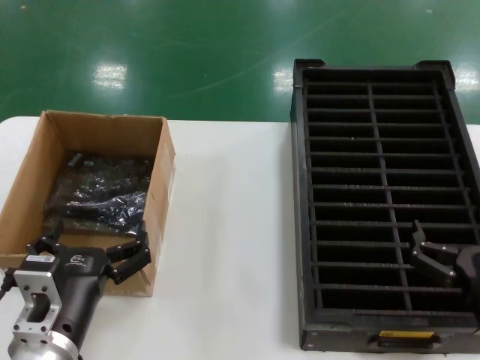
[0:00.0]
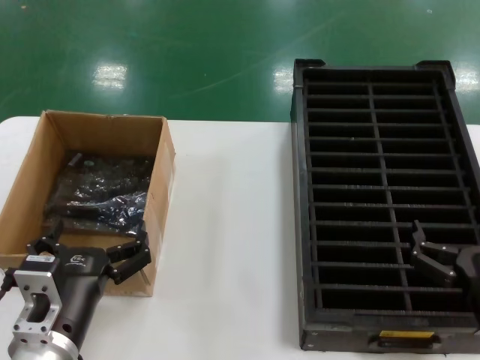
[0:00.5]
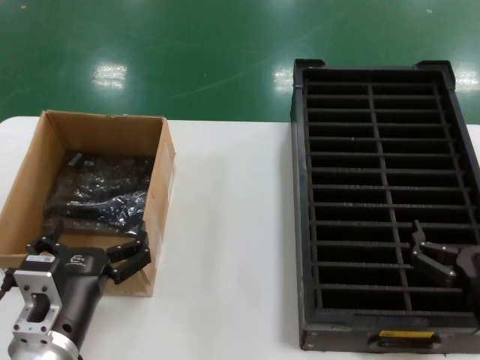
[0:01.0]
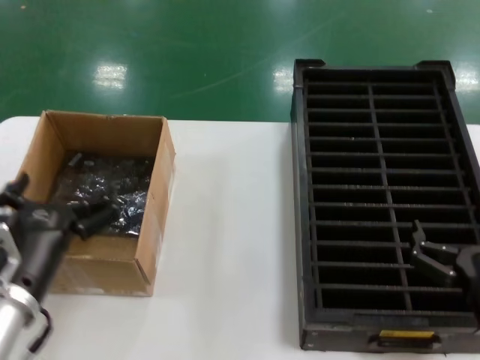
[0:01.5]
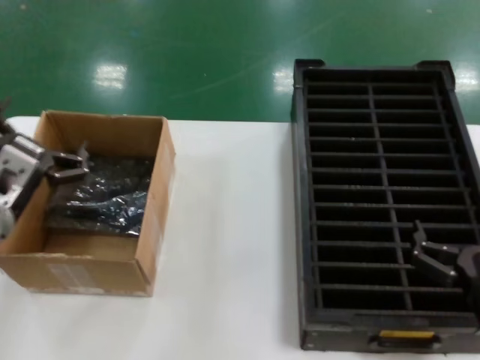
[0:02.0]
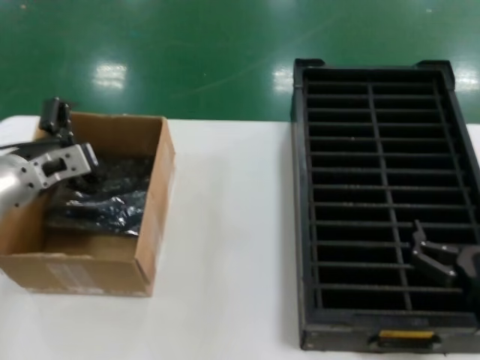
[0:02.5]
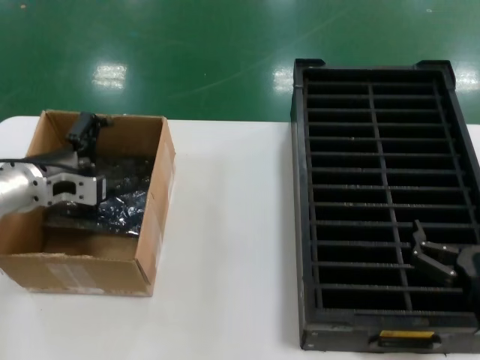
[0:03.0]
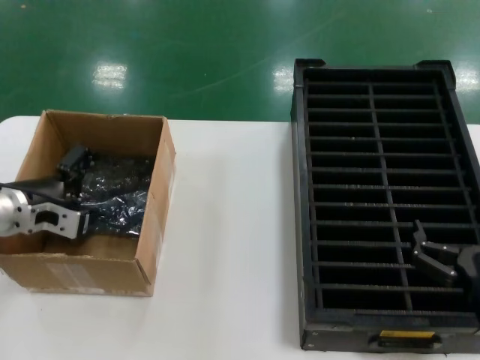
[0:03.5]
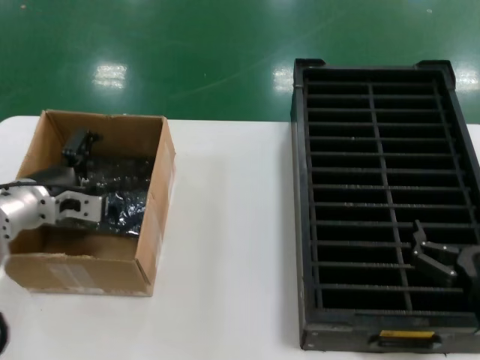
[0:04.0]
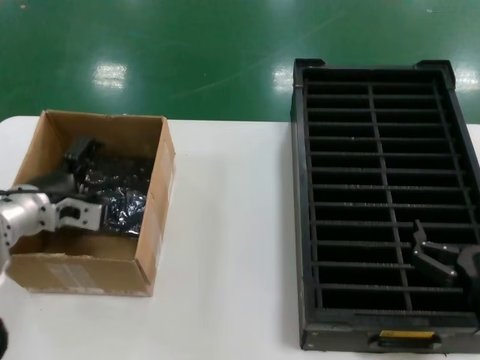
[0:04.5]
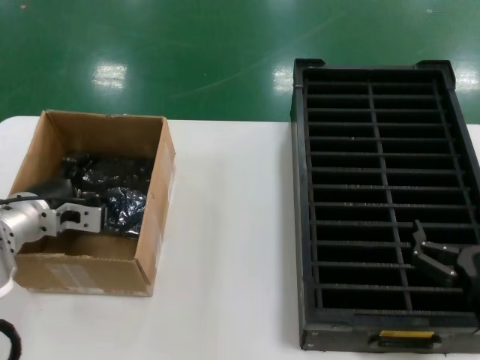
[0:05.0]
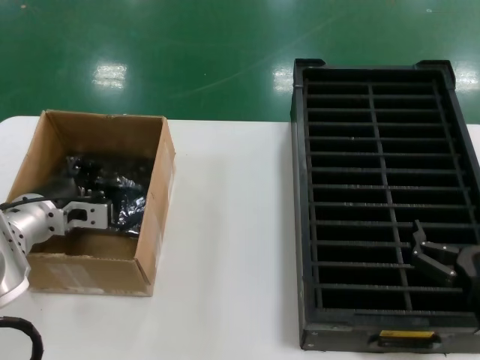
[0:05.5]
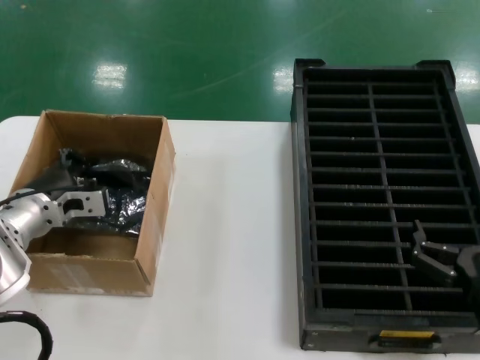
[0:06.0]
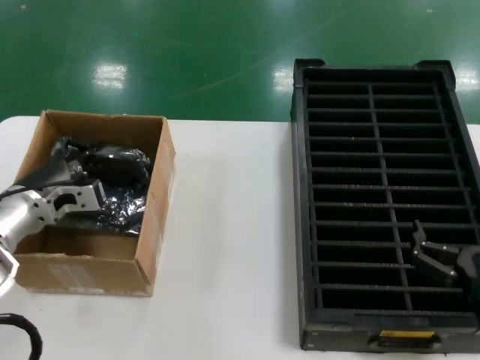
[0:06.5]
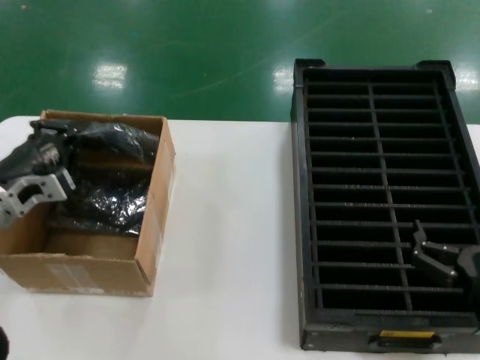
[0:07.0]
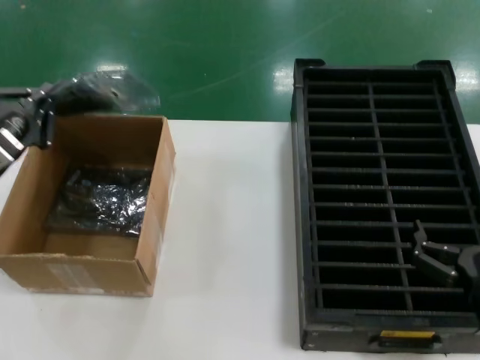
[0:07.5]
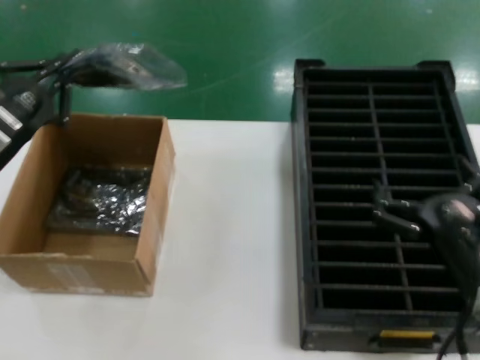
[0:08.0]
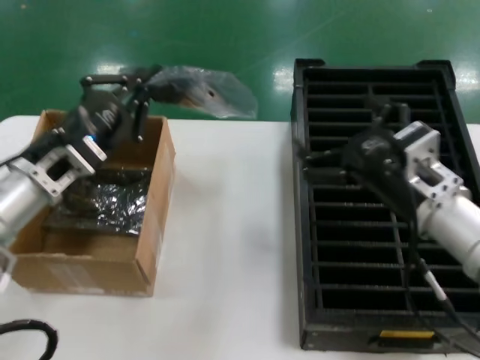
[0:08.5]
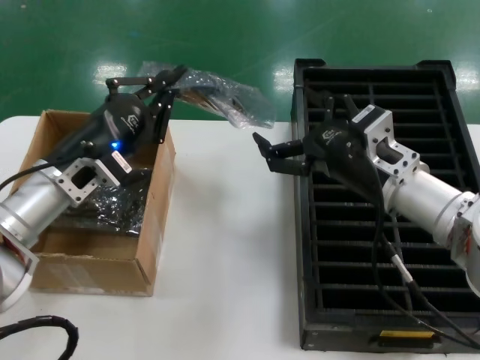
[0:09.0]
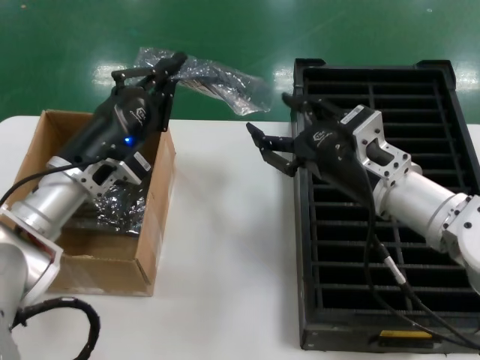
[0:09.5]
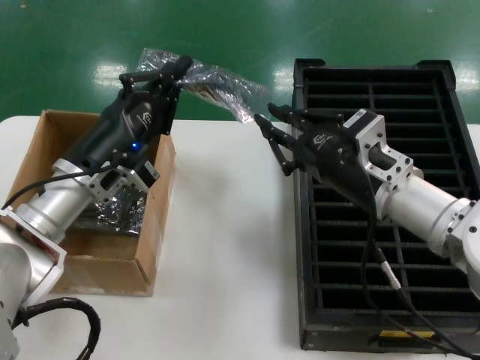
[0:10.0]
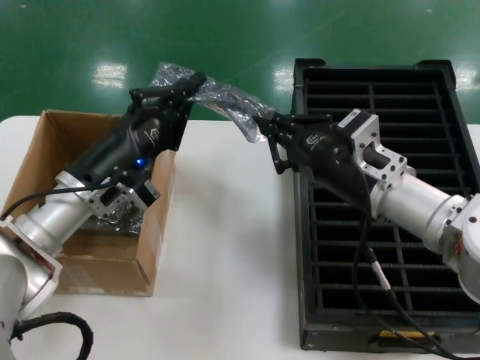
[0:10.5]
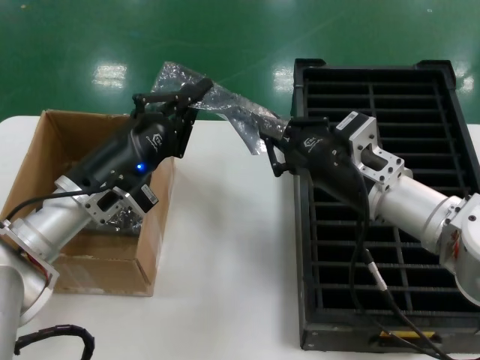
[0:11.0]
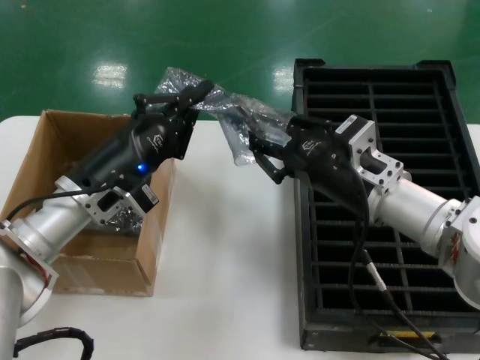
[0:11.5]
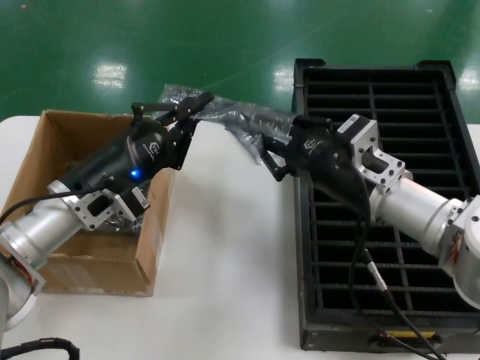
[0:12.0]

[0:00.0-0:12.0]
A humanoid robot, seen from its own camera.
Task of the whole recording: take out graphics card from box remove packaging put into black container.
Step, 0:00.0 to 0:05.5: Grasp the bag.
Step, 0:06.0 to 0:07.5: Lift the bag.
0:00.0 to 0:02.0: The left hand travels forward, to the left and upward by about 15 cm.
0:02.0 to 0:04.0: The left hand moves forward, some 10 cm.
0:04.0 to 0:06.0: The hands move only a little.
0:06.0 to 0:08.0: The right hand moves some 5 cm, while the left hand shifts some 10 cm upward, backward and to the left.
0:08.0 to 0:10.0: The right hand shifts some 15 cm forward, upward and to the left; the left hand travels to the right, downward and forward by approximately 15 cm.

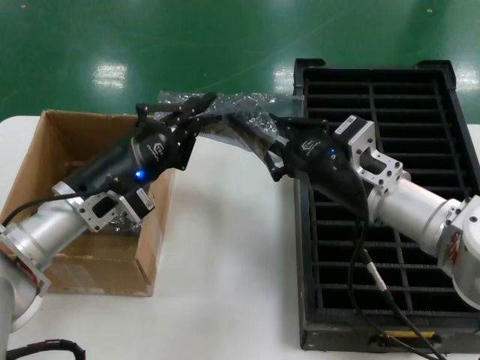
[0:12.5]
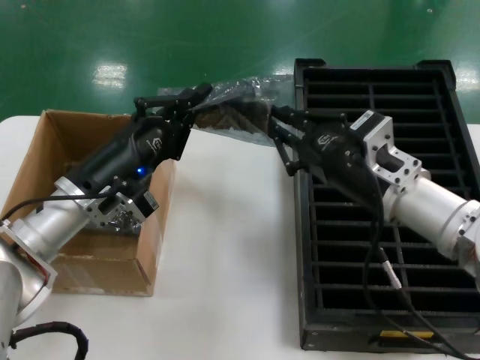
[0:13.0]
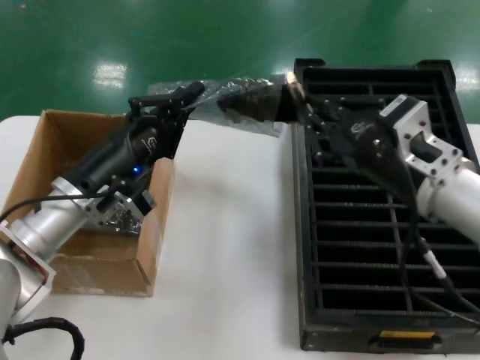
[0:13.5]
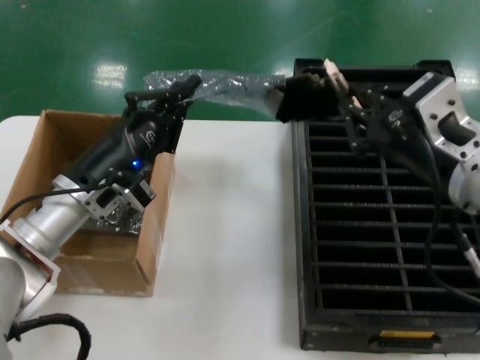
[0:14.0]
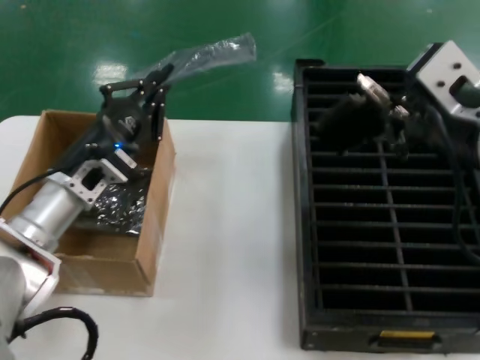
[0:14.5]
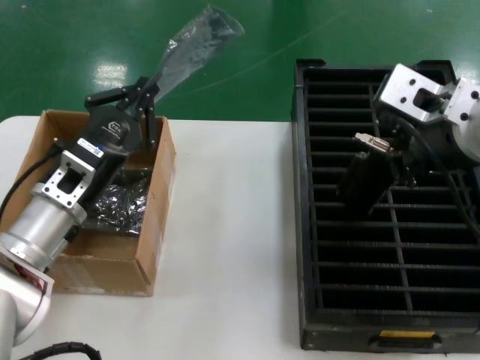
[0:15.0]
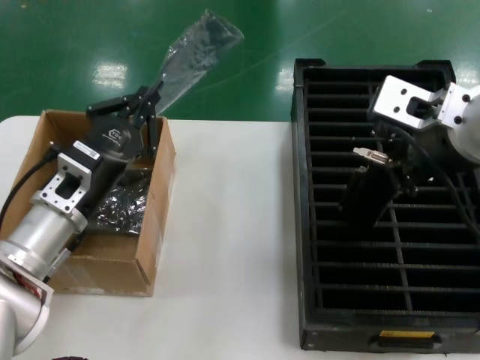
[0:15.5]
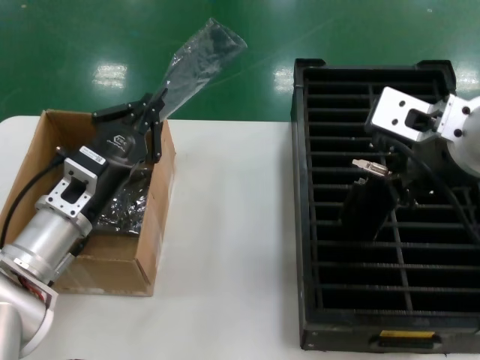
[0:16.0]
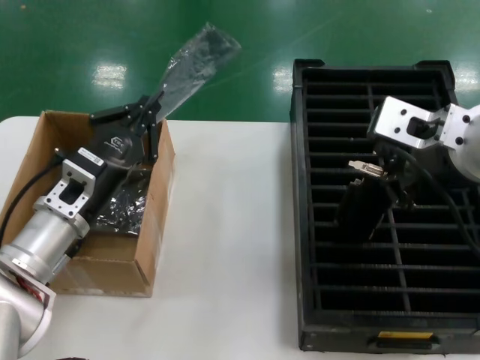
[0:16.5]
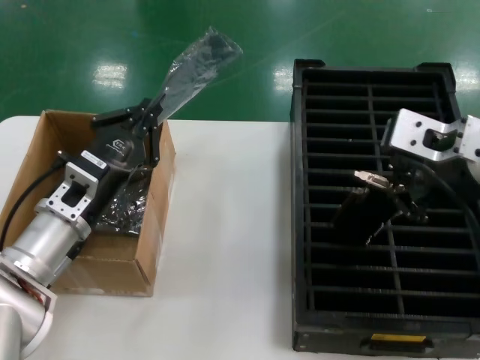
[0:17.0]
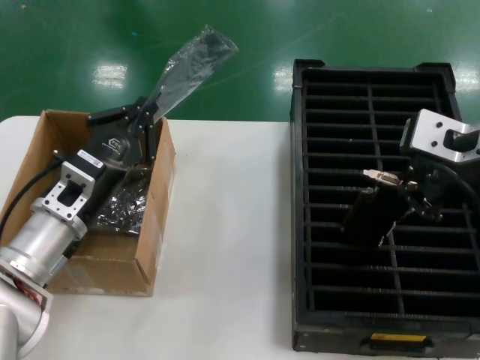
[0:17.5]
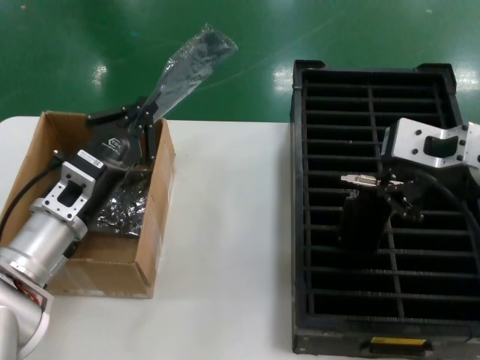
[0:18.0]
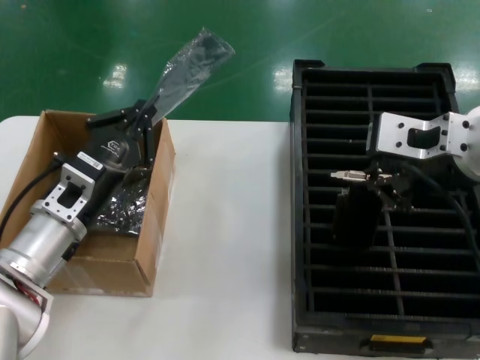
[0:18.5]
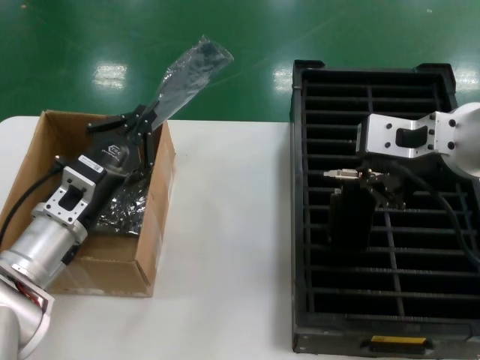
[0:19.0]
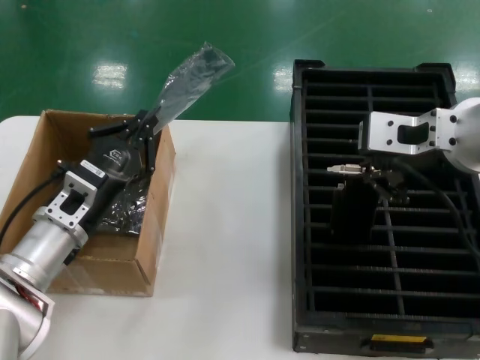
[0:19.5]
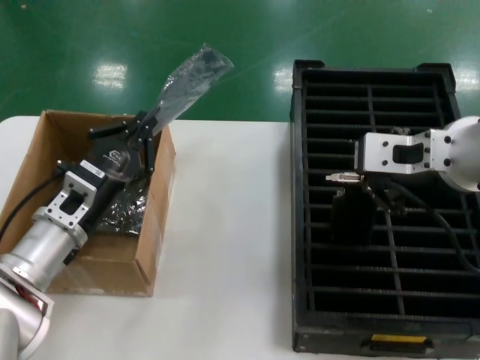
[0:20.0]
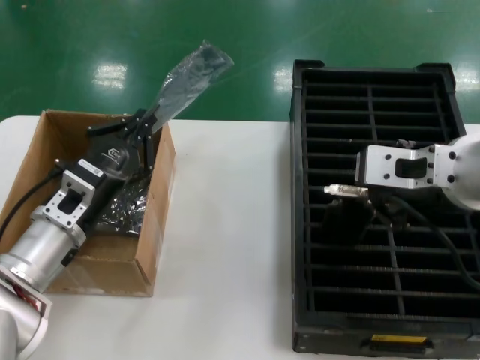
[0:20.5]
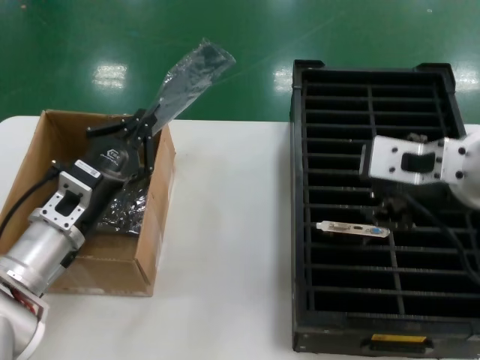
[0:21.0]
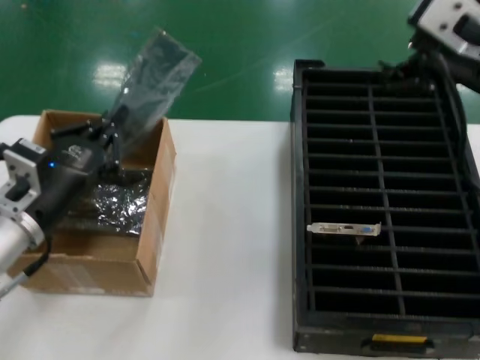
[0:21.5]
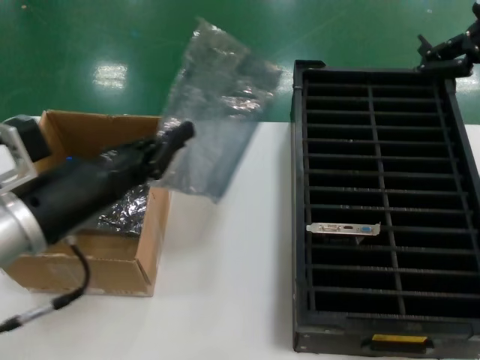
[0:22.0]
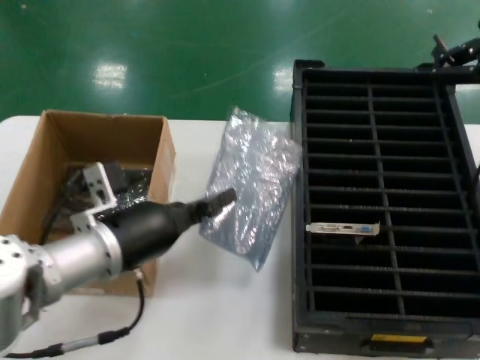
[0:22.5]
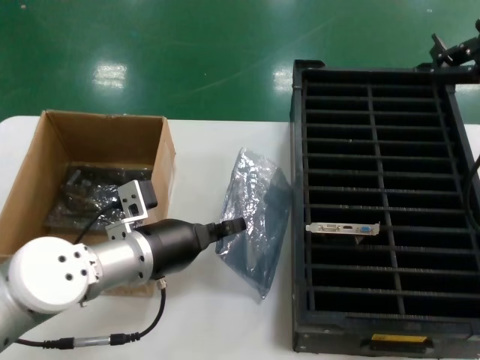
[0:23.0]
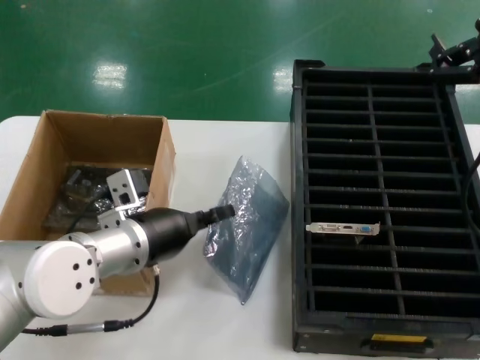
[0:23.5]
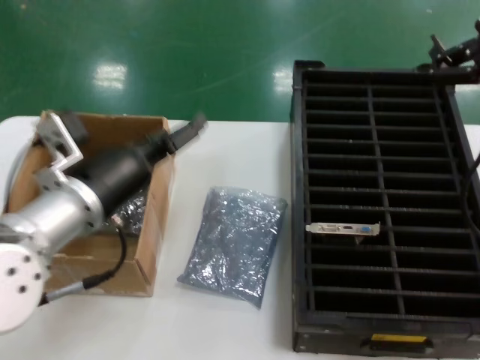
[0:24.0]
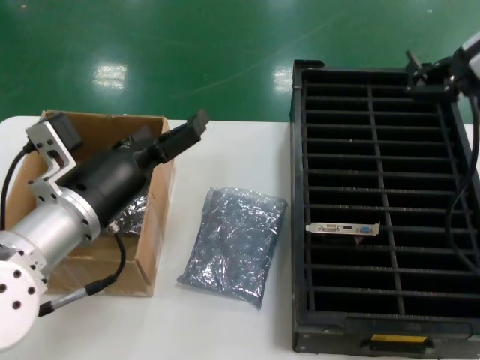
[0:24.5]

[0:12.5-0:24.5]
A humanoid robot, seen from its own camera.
Task of the whole recording: take out graphics card from box remove packaging put into black container.
Step, 0:14.5 to 0:21.0: Place the hard disk in the hard disk enclosure.
0:12.5 to 0:14.5: The right hand moves upward and backward, approximately 20 cm.
0:14.5 to 0:16.5: The right hand goes roughly 5 cm forward.
0:16.5 to 0:20.5: The hands make only small movements.
0:20.5 to 0:22.5: The right hand goes roughly 5 cm to the right. Meanwhile the left hand goes roughly 10 cm backward, to the right and upward.

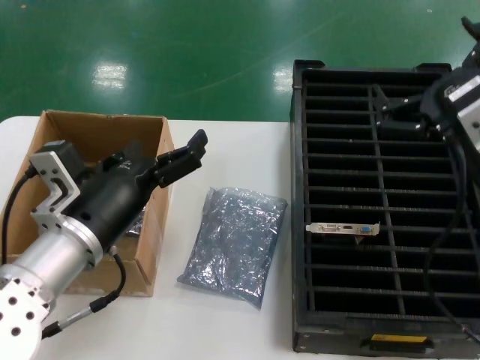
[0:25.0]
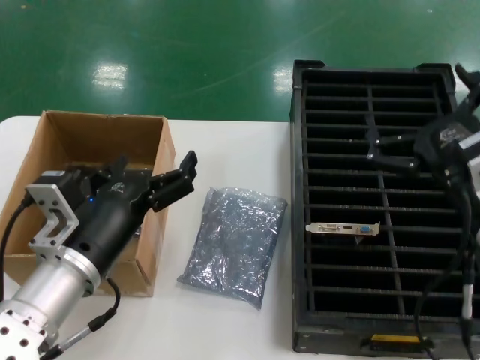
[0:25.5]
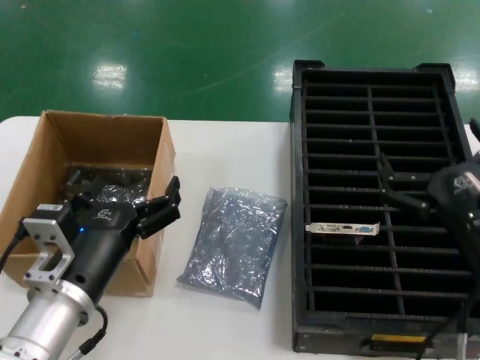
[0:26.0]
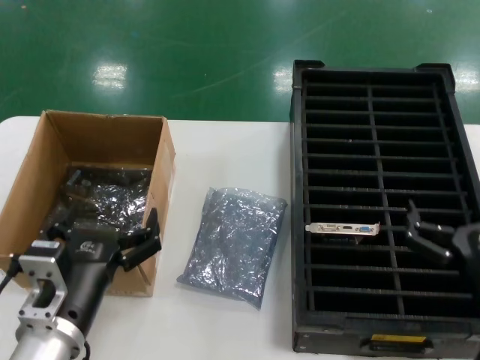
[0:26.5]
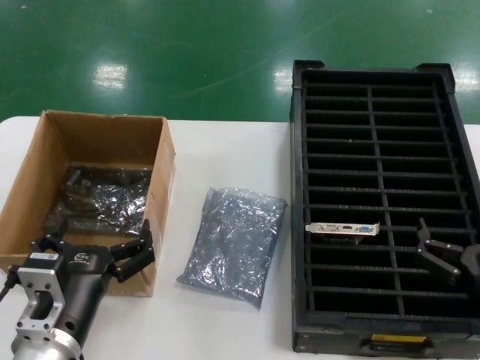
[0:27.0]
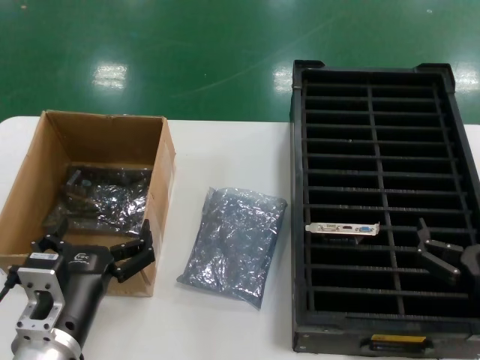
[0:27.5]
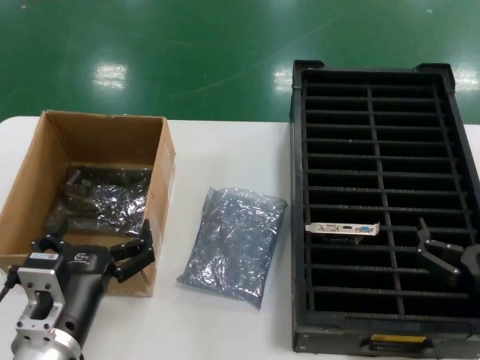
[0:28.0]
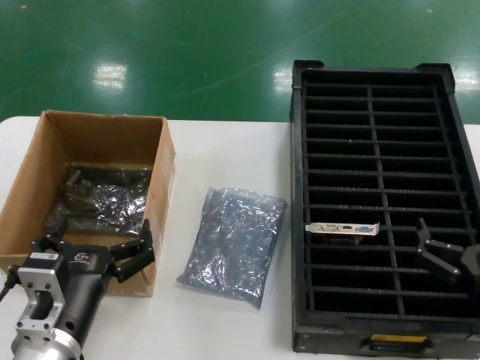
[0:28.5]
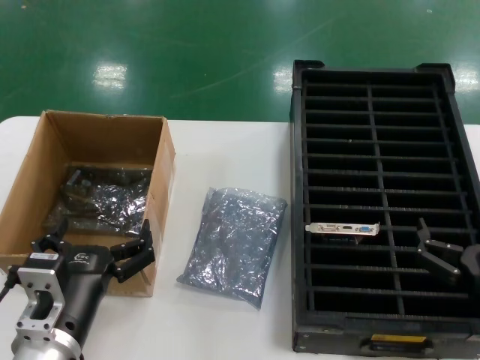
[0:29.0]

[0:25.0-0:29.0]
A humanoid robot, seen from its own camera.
Task of the whole recording: take out graphics card from box remove packaging put into black container.
0:25.0 to 0:27.0: The right hand goes roughly 20 cm downward; the left hand heads downward and backward, covering approximately 10 cm.
0:27.0 to 0:29.0: Both hands stay put.
